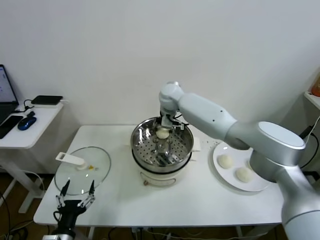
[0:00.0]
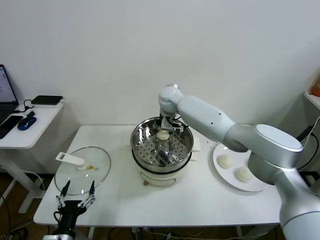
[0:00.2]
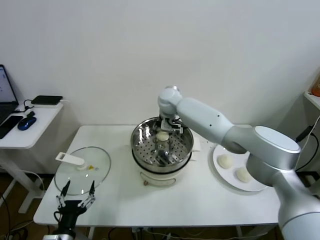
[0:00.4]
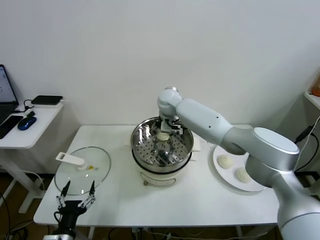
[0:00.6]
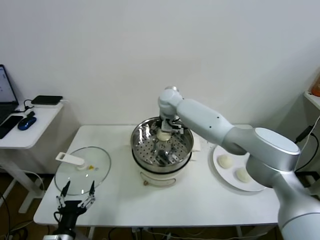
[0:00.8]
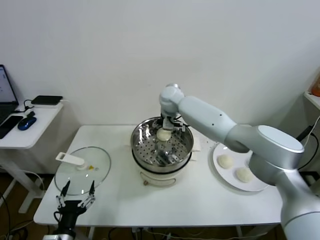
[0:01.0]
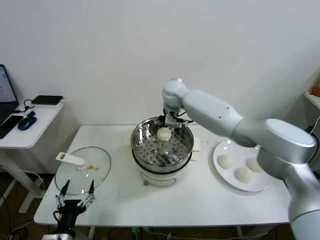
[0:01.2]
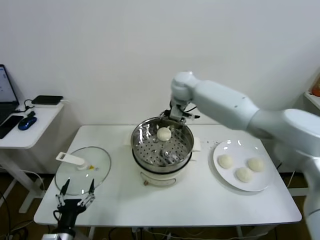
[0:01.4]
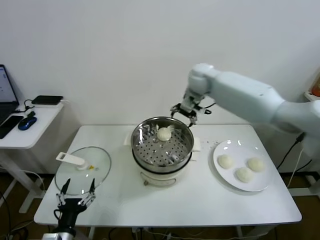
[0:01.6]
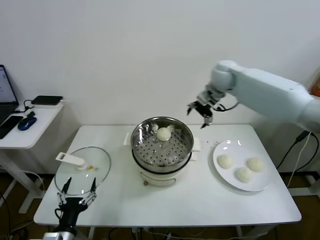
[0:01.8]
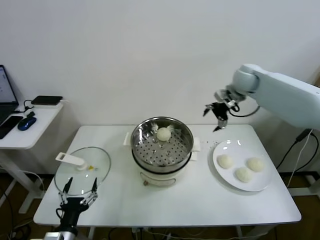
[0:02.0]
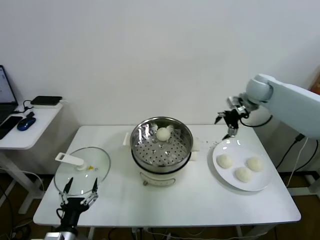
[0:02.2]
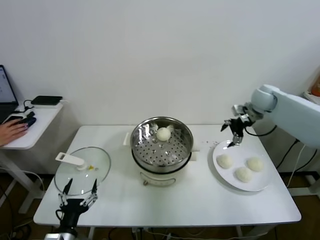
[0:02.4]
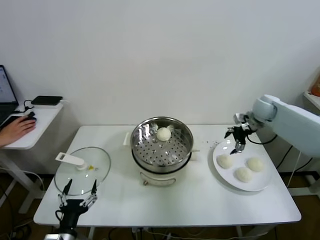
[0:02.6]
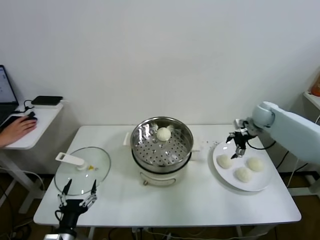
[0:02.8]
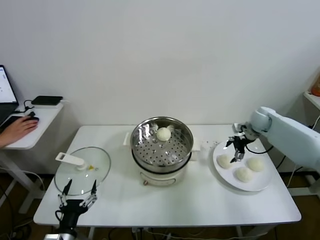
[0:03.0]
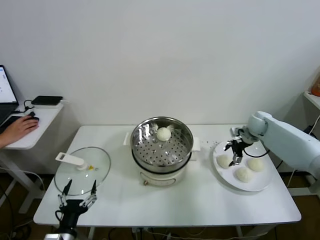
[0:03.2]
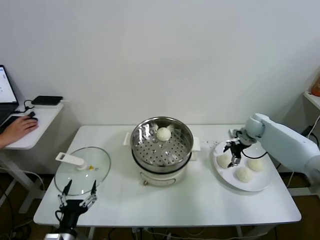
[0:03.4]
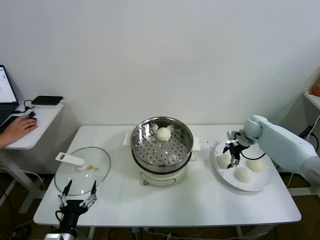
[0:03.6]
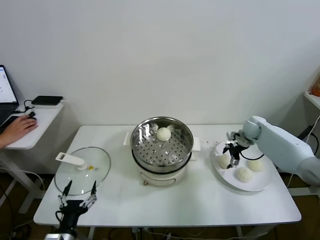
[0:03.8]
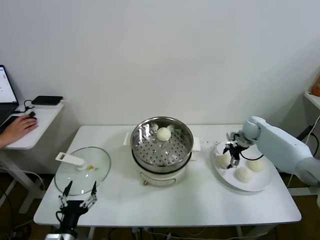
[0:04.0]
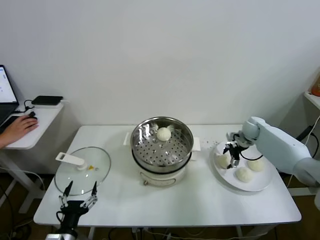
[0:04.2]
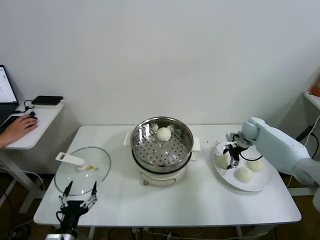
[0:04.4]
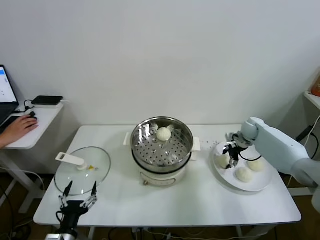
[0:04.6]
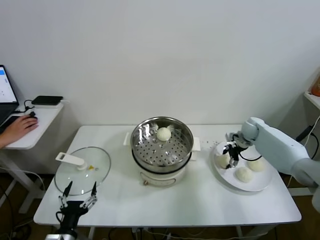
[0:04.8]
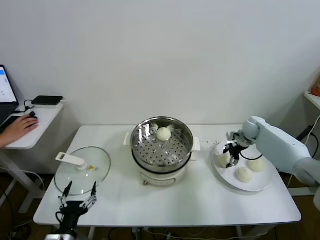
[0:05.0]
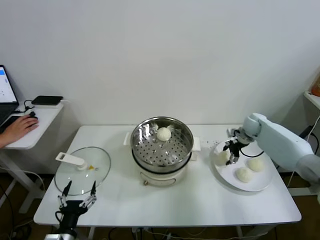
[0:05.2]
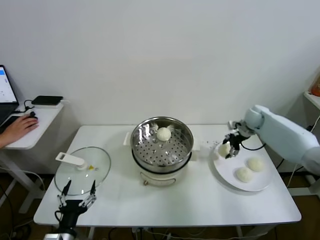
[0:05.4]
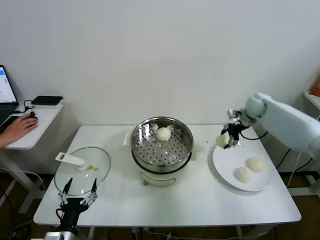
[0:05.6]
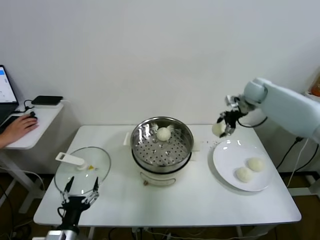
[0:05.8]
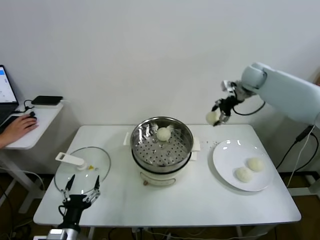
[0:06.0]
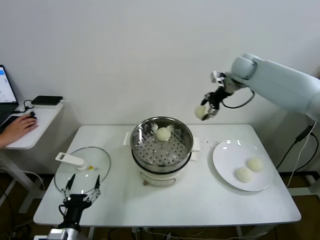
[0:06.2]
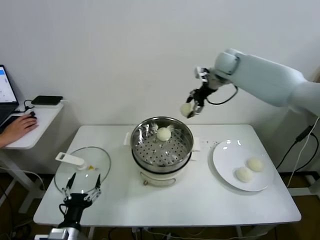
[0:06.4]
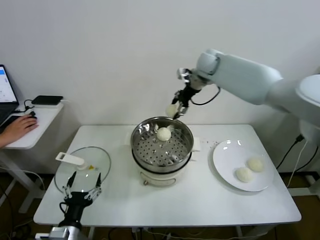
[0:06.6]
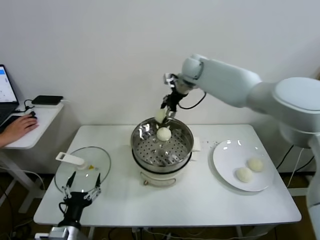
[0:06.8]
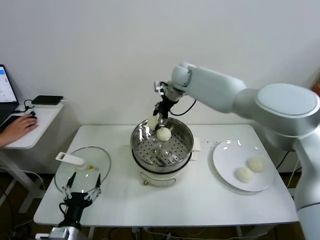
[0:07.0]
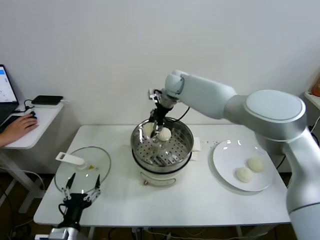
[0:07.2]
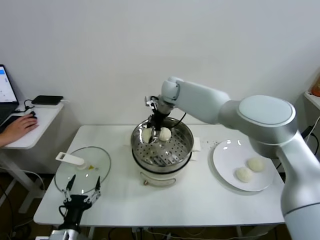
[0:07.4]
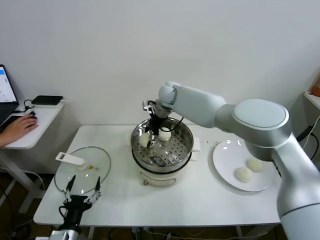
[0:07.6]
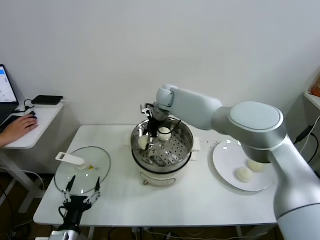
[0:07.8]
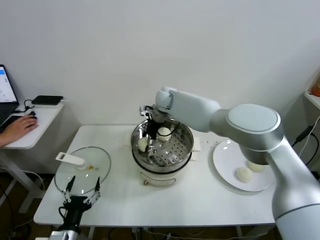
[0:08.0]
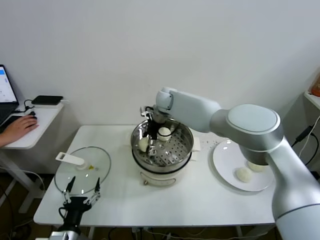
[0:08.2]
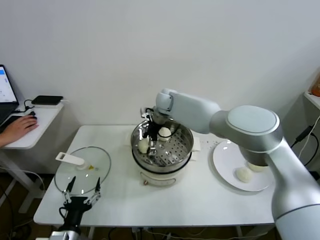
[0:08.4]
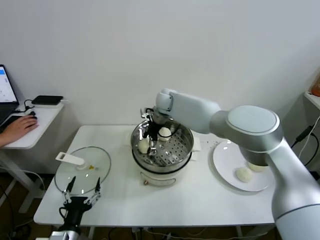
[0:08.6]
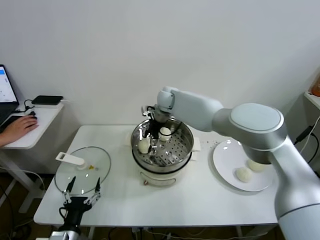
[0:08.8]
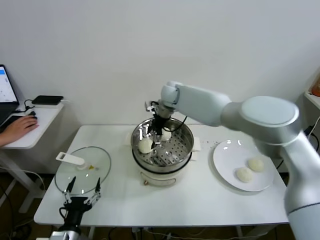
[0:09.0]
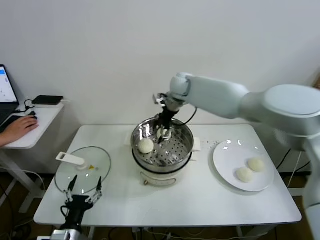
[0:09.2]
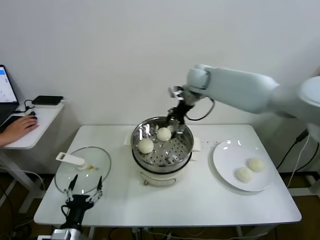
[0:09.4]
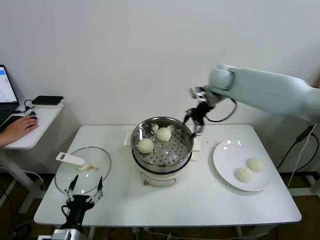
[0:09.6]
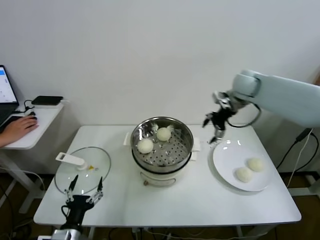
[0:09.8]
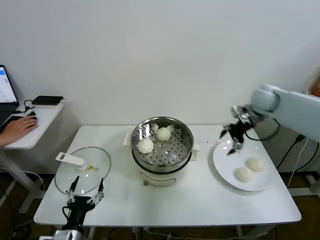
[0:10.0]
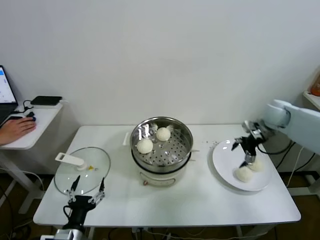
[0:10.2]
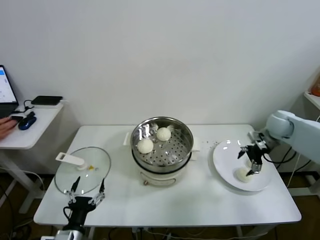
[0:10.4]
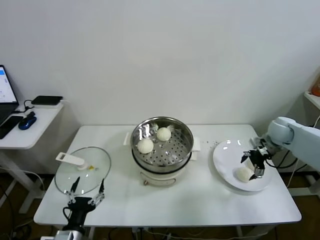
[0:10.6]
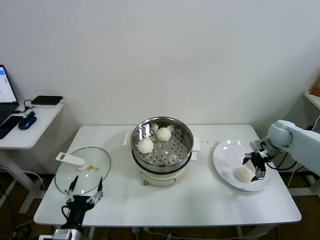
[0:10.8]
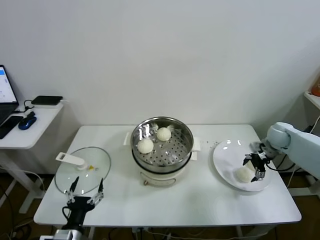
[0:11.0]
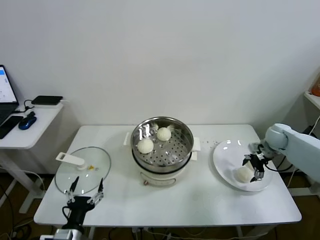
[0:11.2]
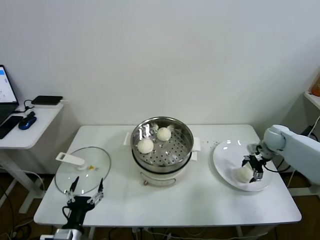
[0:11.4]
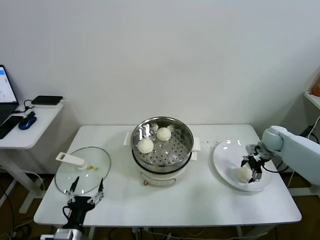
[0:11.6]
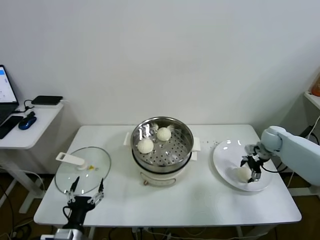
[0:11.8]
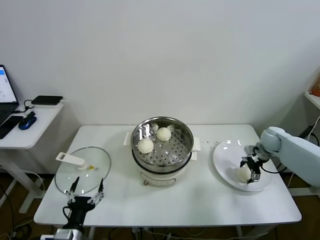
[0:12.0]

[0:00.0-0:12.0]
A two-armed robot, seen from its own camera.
Task of the whole recording: take steamed baozi put them in steamer.
Step, 0.8 to 5.0 s: Grasp the baozi in the plate with right gripper.
Step, 5.2 to 8.6 s: Place the baozi on the steamer with right gripper.
0.0 to 1.6 s: The right gripper moves to the right and upward, approximately 15 cm, and opens up.
1.6 to 3.0 s: The right gripper travels to the right and downward by some 30 cm.
3.0 to 4.4 s: The right gripper travels downward by approximately 5 cm.
4.4 to 6.0 s: The right gripper travels upward by roughly 25 cm, and closes.
6.0 to 7.6 s: The right gripper heads to the left, covering some 30 cm.
7.6 to 9.0 s: The right gripper opens its fingers.
9.0 to 10.4 s: The right gripper is displaced to the right by some 40 cm.
10.4 to 12.0 s: The right gripper travels downward by about 10 cm.

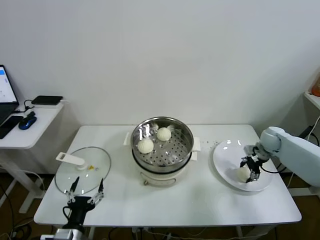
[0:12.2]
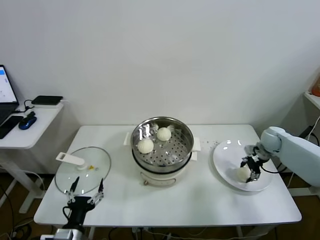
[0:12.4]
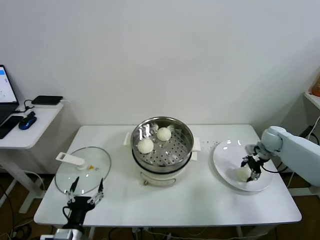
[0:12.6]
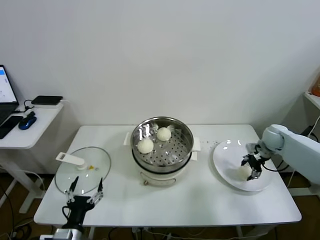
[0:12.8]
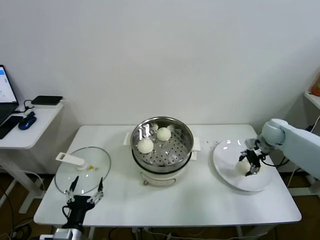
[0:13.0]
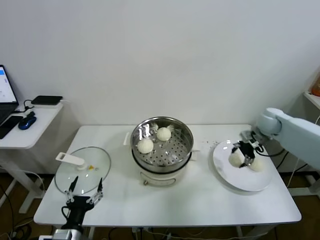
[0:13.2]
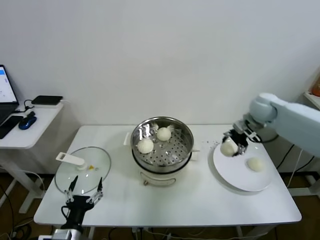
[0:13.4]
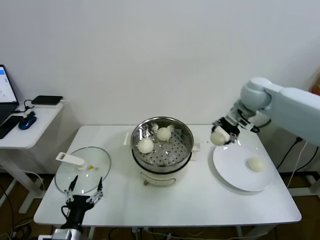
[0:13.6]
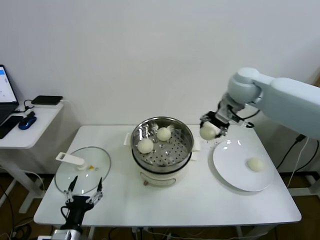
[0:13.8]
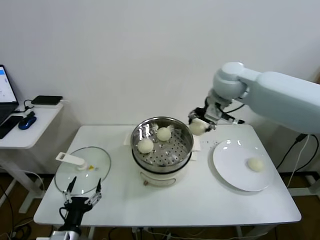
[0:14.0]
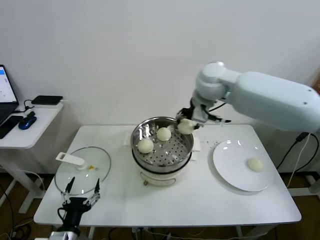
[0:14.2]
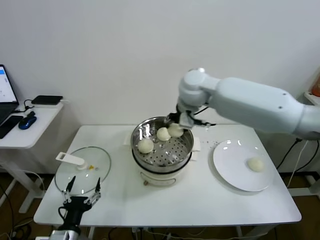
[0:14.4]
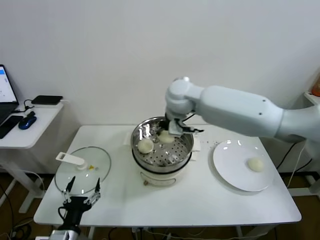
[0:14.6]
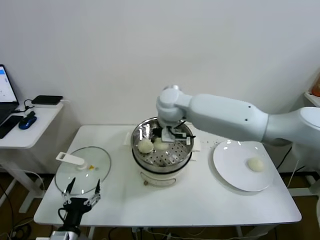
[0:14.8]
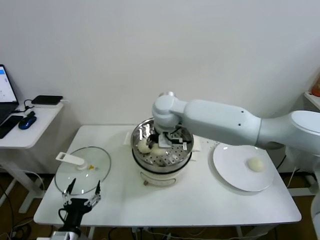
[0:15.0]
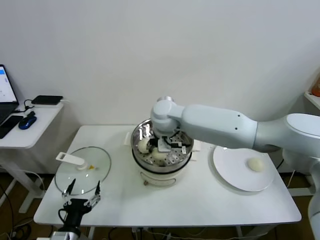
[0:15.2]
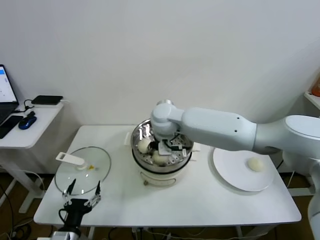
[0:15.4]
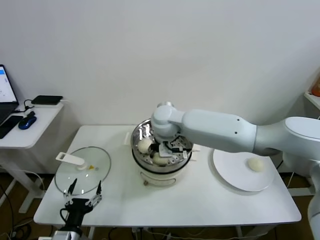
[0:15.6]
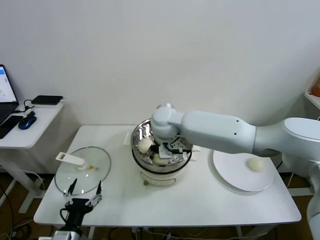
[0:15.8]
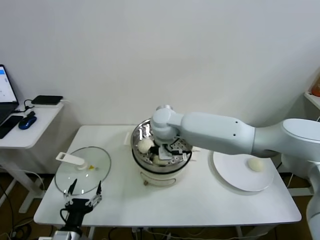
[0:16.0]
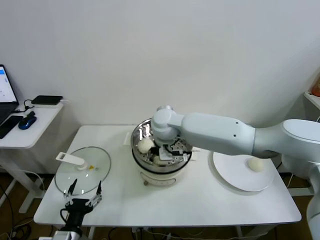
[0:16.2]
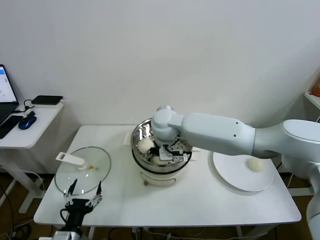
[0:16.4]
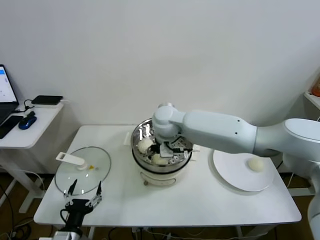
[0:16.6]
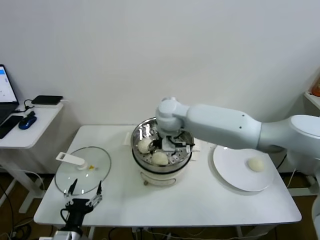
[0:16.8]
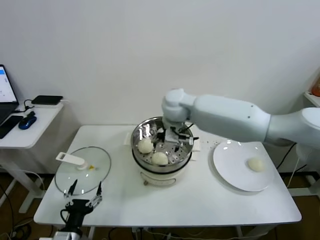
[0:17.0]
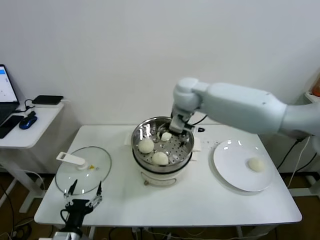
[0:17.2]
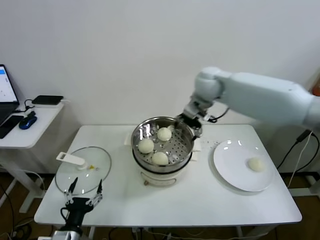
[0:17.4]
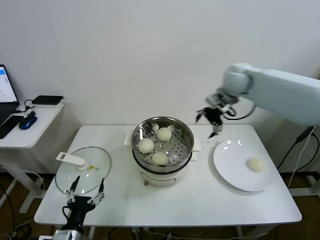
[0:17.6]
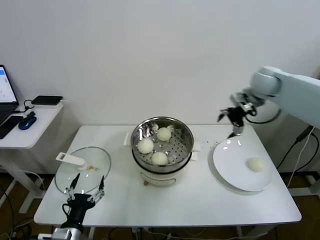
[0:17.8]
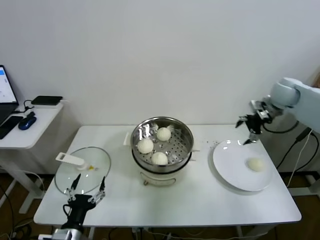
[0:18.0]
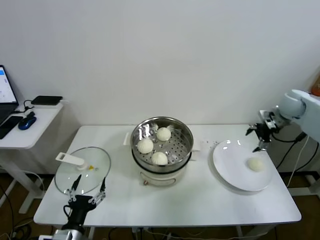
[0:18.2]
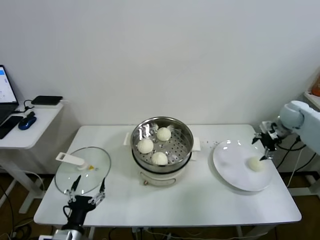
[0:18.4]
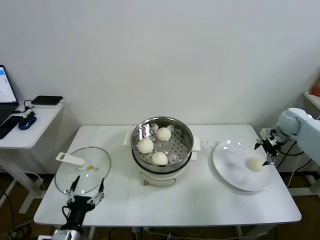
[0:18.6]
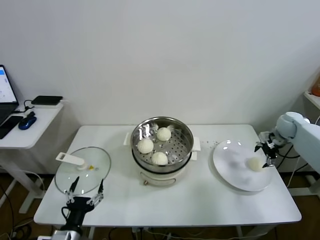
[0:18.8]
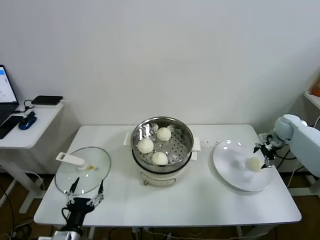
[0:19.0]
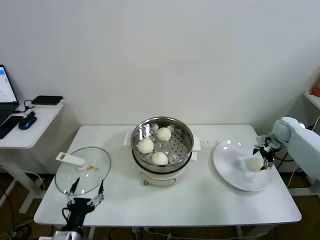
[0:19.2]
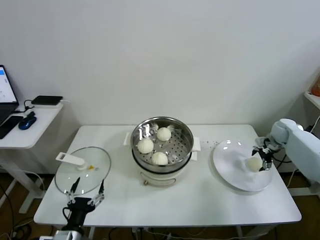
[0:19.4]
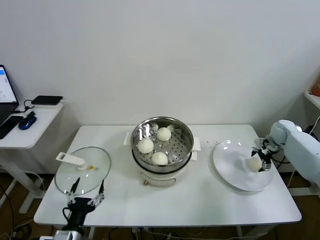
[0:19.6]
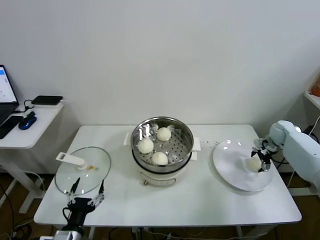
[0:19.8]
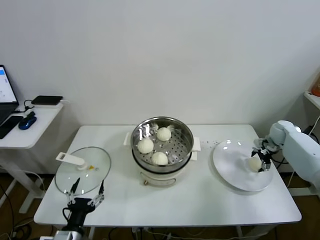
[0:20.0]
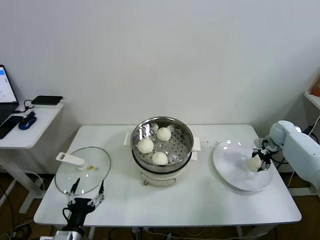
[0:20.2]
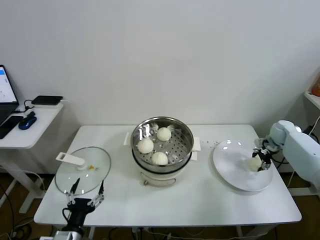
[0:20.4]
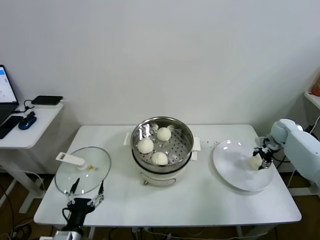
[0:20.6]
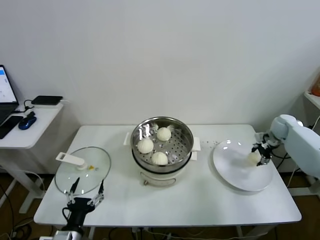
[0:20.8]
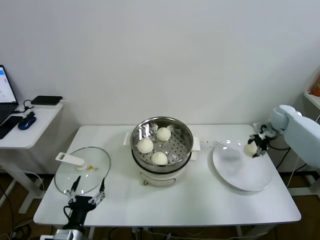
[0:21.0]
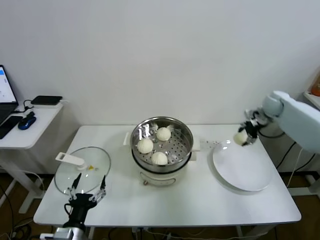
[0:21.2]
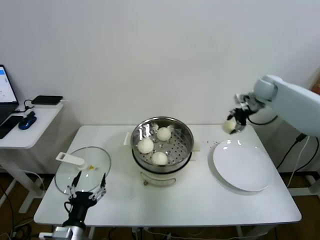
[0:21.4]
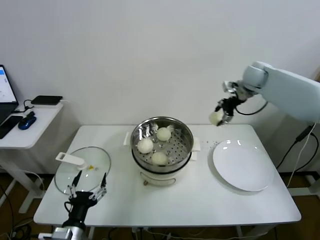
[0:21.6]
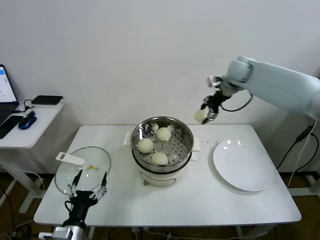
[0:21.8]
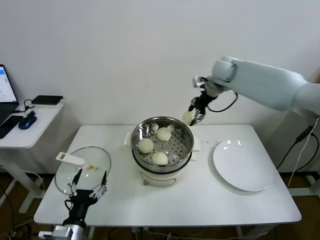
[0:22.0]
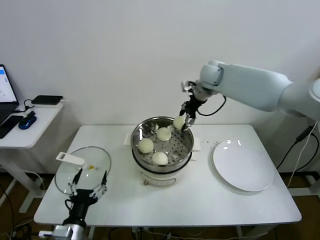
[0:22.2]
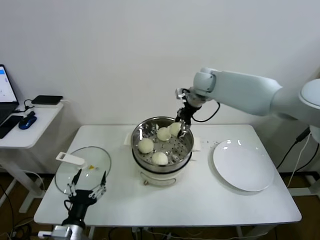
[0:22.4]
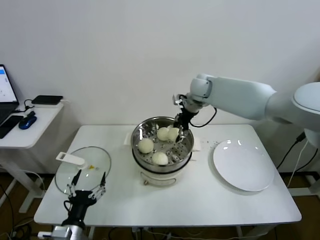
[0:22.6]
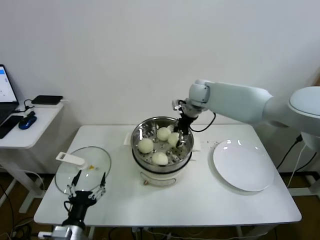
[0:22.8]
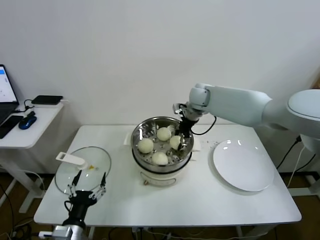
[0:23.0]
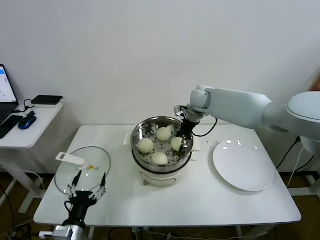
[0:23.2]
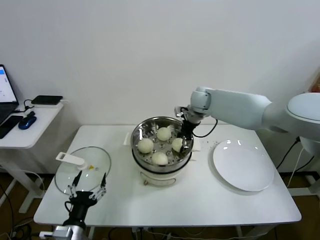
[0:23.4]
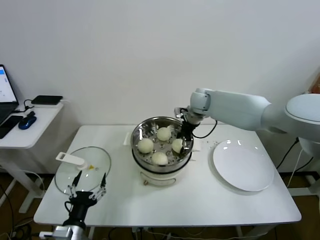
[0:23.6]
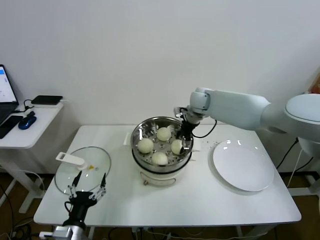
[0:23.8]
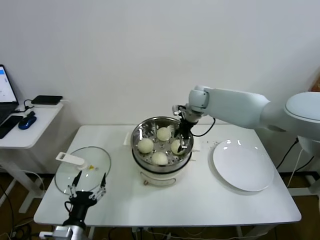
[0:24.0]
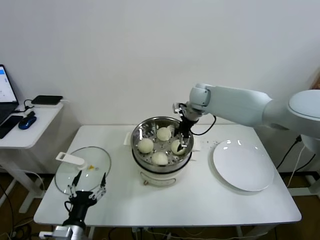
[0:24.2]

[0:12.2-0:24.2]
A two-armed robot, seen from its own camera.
Task of the whole recording: take steamed baozi put them in steamer.
Step, 12.6 to 16.6 s: Place the baozi on the steamer with right gripper.
Step, 16.8 to 20.4 s: Grasp the baozi in the plate with right gripper.
Step, 20.6 to 23.8 s: Place the baozi on the steamer with right gripper.
12.2 to 13.8 s: The right gripper shifts approximately 35 cm upward and to the left.
13.8 to 15.2 s: The right gripper travels to the left and downward by approximately 25 cm.
15.2 to 16.6 s: The right gripper opens its fingers.
16.6 to 18.2 s: The right gripper moves to the right, about 40 cm.
18.2 to 19.8 s: The right gripper moves downward, roughly 15 cm.
19.8 to 21.2 s: The right gripper moves upward and to the left, approximately 15 cm, and closes up.
21.2 to 22.6 s: The right gripper travels to the left by about 30 cm.
22.6 to 24.2 s: The right gripper opens its fingers.
